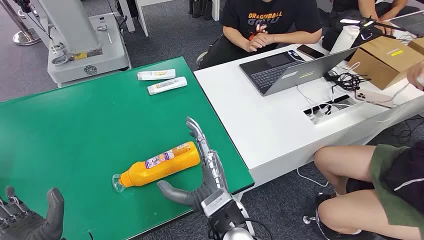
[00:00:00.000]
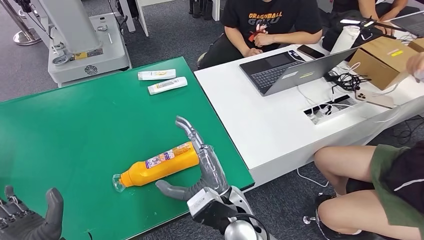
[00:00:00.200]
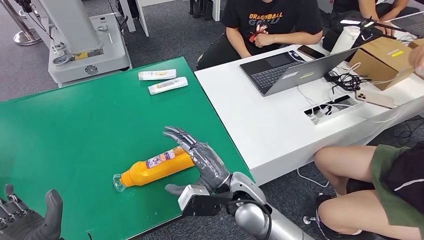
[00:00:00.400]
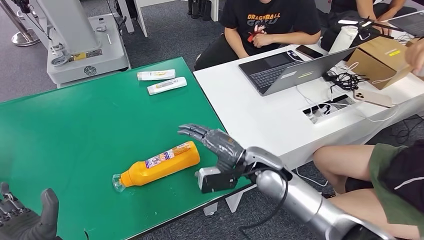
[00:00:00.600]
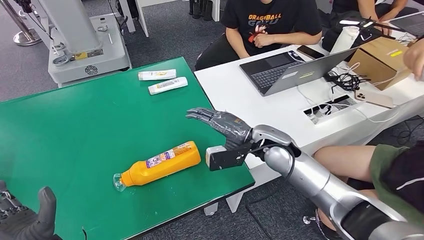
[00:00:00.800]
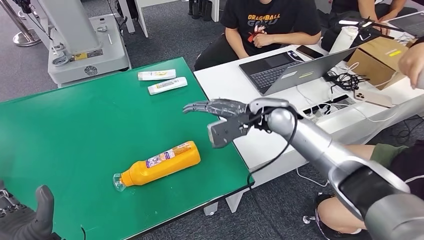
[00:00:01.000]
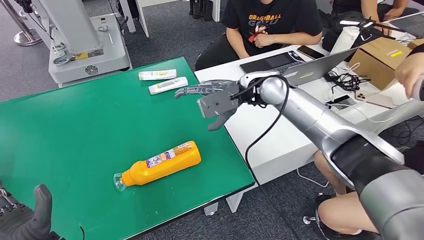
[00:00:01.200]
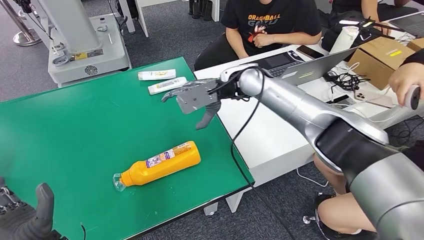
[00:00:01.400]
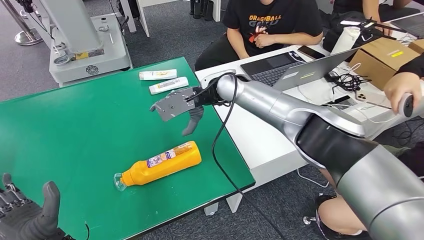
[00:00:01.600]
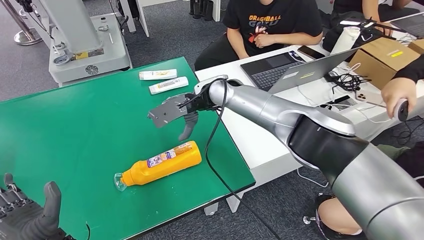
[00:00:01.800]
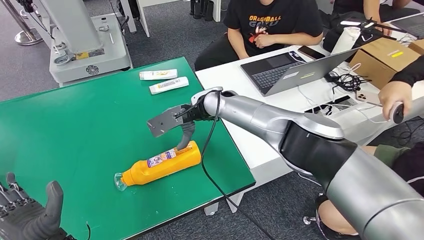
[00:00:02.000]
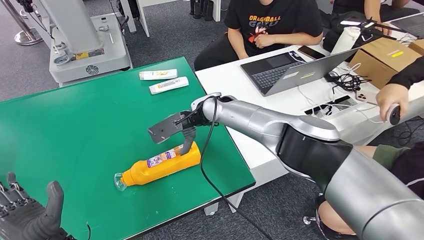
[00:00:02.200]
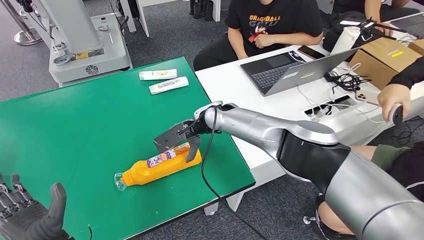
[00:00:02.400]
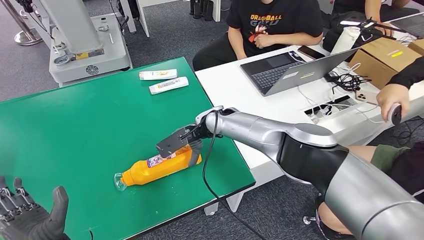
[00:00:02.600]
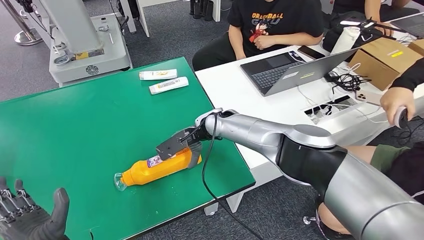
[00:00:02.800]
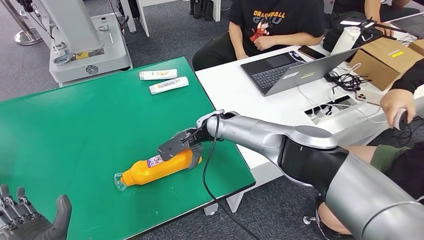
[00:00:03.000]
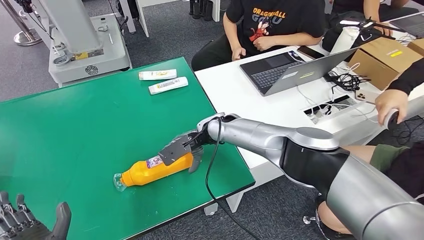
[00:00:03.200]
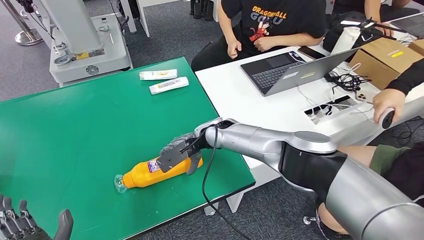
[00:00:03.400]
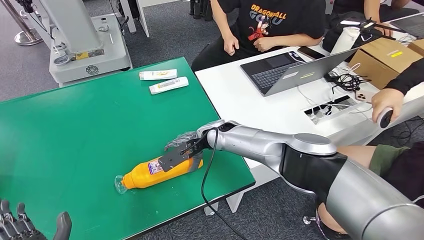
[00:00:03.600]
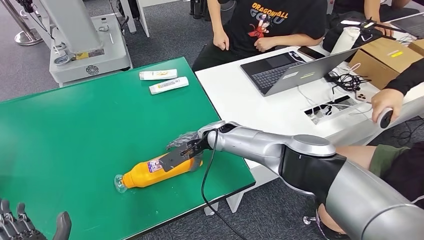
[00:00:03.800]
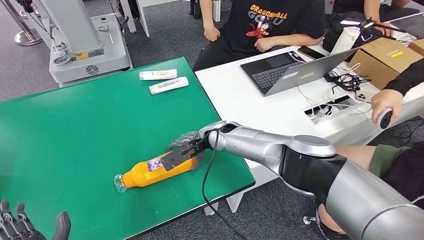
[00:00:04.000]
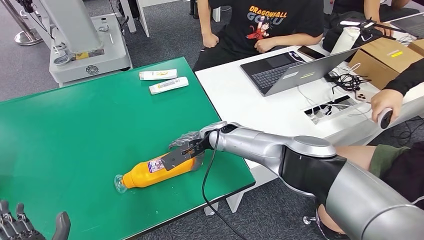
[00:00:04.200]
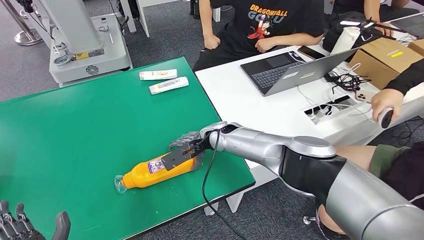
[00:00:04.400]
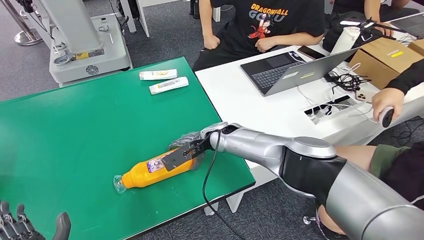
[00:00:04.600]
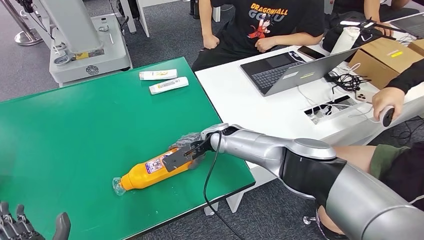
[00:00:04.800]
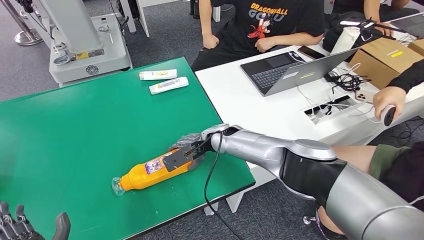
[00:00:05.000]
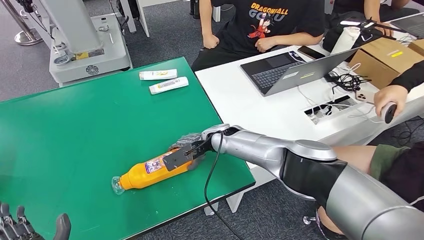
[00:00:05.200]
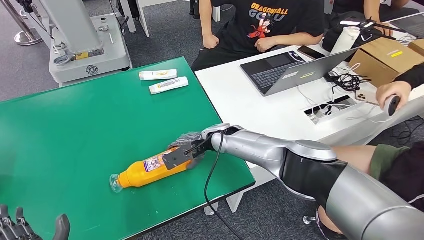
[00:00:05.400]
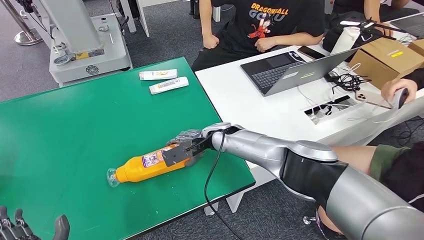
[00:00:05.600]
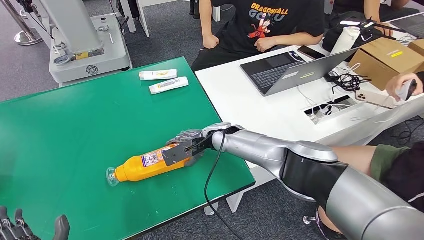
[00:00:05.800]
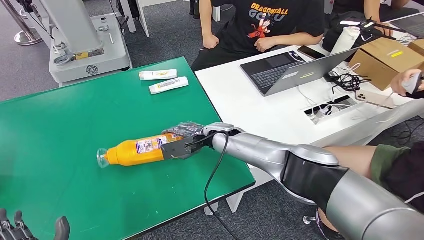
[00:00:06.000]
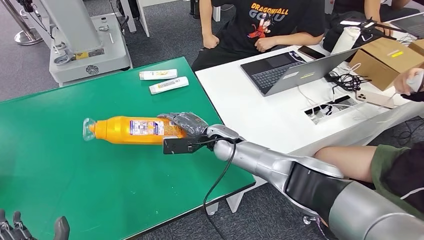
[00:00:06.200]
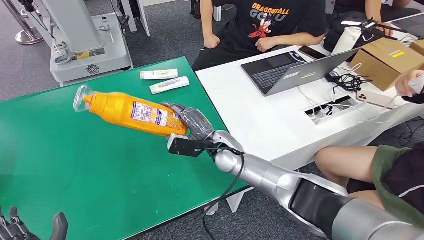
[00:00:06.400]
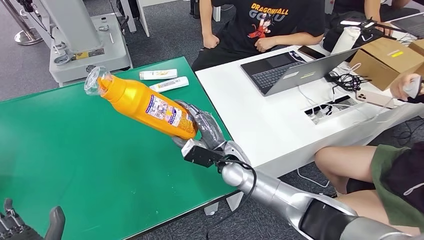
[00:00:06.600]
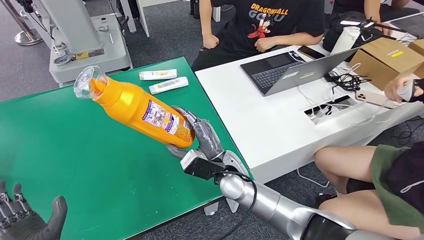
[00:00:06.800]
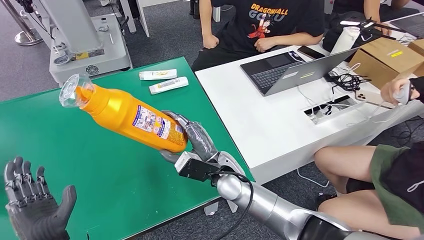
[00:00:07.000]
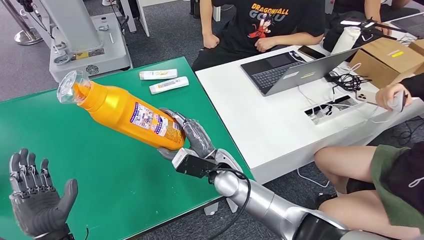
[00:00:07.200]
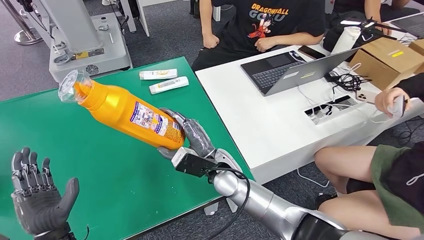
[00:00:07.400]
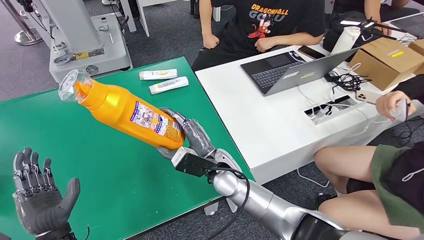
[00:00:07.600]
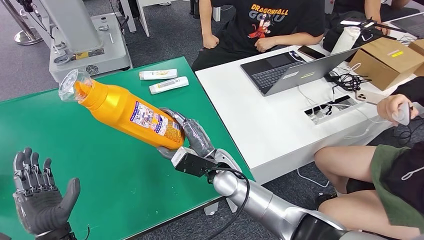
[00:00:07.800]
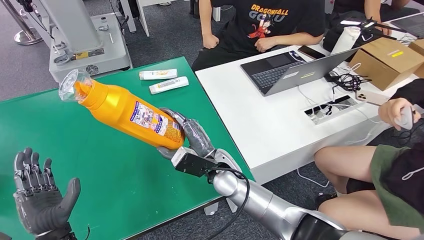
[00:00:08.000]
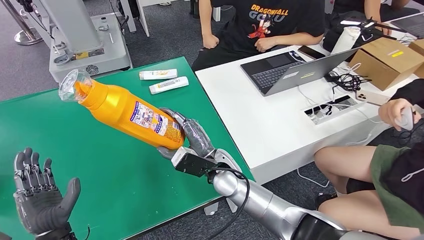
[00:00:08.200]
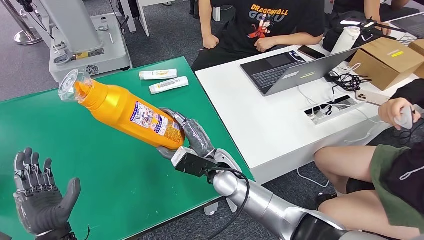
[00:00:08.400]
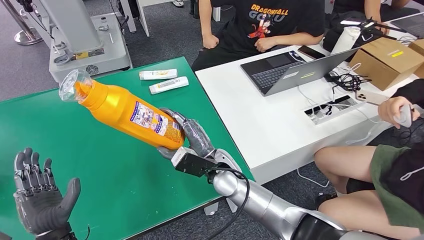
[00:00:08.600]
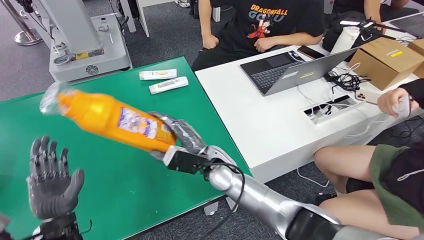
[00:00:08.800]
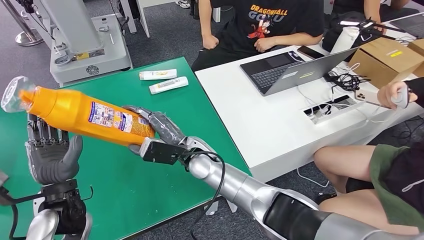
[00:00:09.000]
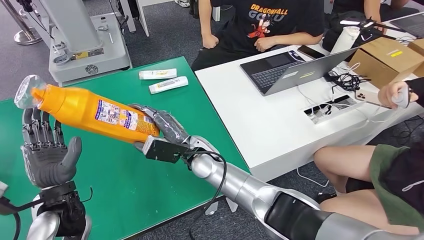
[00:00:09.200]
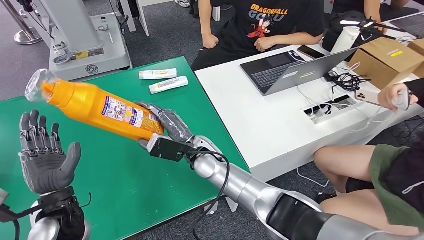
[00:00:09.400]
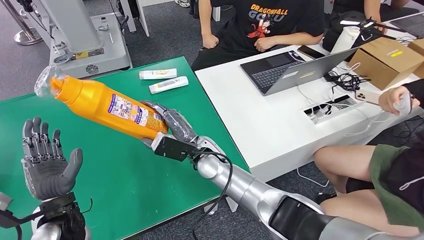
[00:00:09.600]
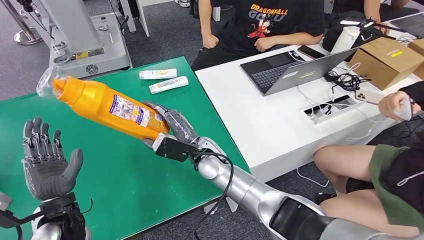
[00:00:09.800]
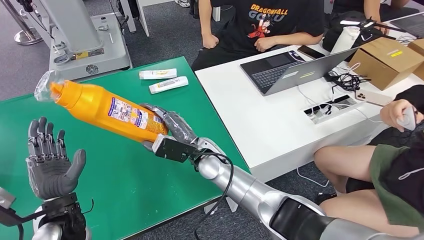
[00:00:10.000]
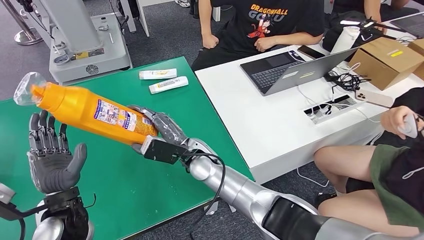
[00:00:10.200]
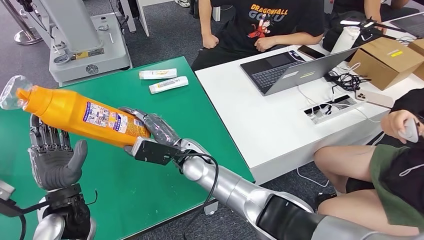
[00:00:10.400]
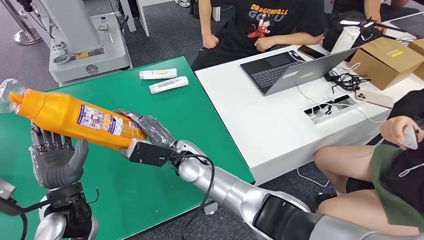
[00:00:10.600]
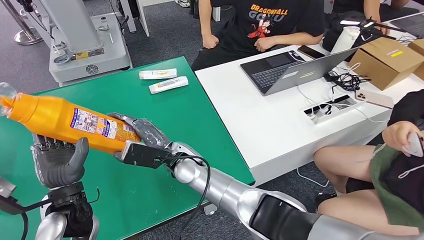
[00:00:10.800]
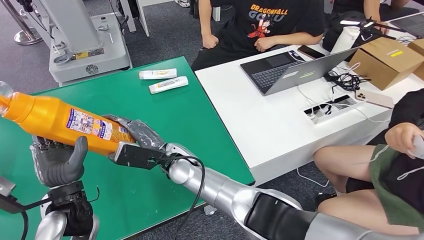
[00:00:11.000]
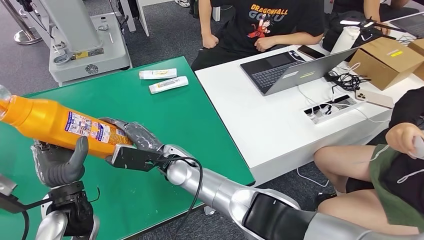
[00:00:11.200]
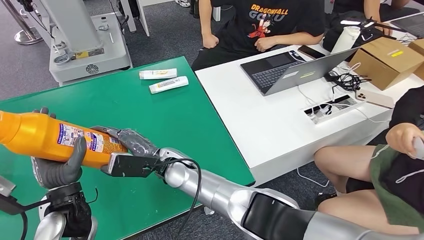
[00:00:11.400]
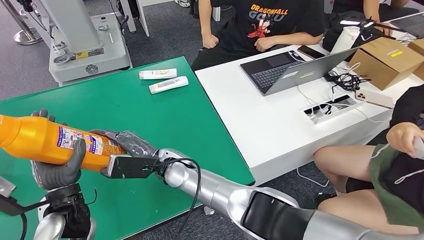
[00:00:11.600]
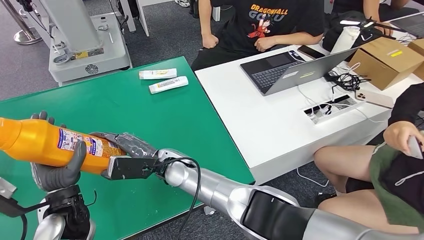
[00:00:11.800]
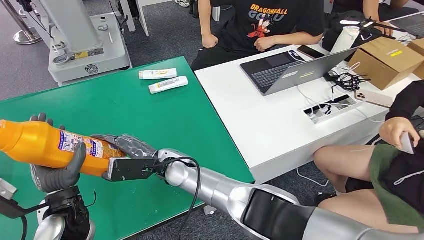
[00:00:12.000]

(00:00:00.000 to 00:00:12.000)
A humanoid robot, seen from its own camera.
Step, 00:00:00.000 - 00:00:06.800: Pick up the bottle from the table.
00:00:03.000 - 00:00:04.400: The hands stay close to where they were, moving slightly.
00:00:04.400 - 00:00:06.000: The hands stay close to where they were, moving slightly.
00:00:09.000 - 00:00:10.400: The hands stay close to where they were, moving slightly.
00:00:10.400 - 00:00:12.000: The right hand moves some 5 cm.

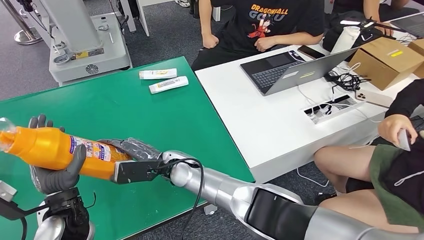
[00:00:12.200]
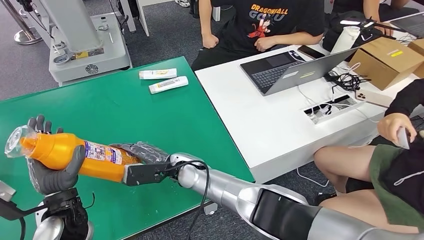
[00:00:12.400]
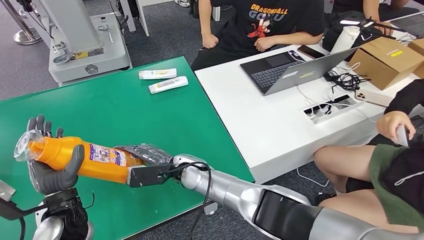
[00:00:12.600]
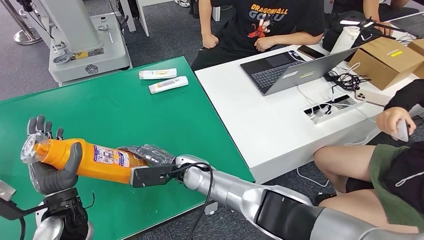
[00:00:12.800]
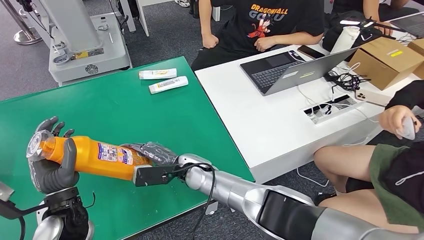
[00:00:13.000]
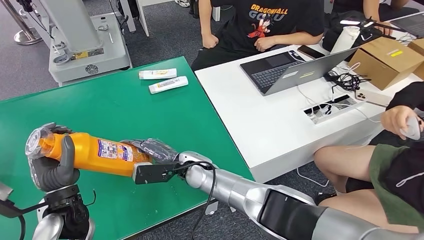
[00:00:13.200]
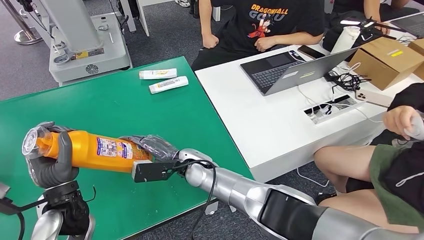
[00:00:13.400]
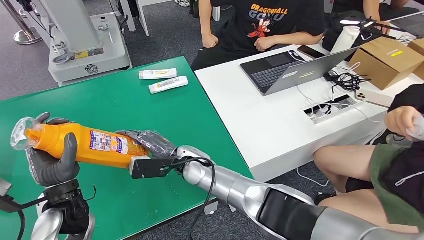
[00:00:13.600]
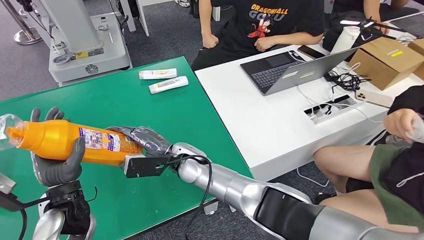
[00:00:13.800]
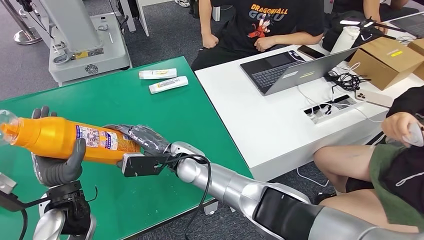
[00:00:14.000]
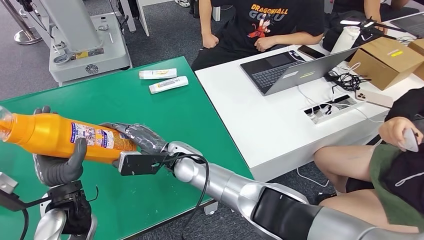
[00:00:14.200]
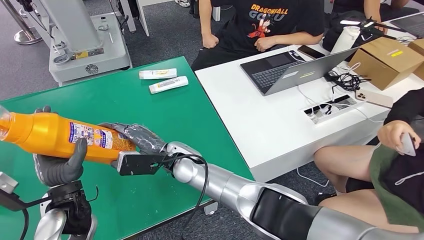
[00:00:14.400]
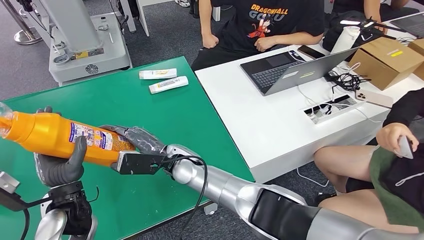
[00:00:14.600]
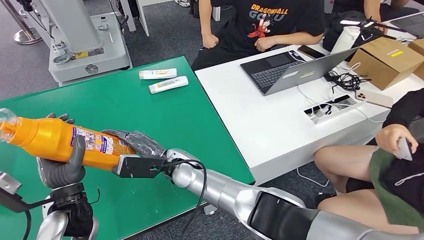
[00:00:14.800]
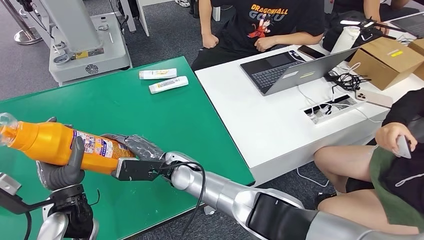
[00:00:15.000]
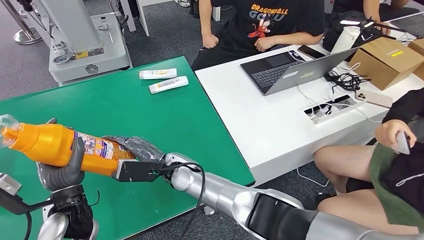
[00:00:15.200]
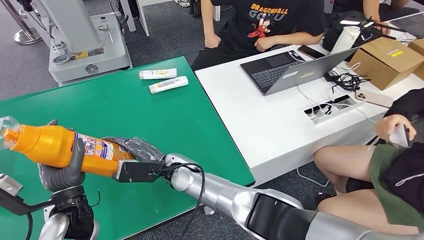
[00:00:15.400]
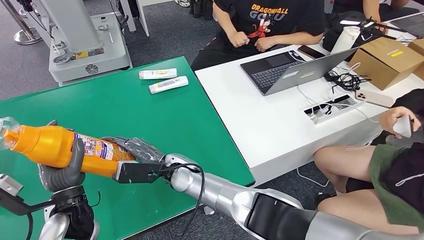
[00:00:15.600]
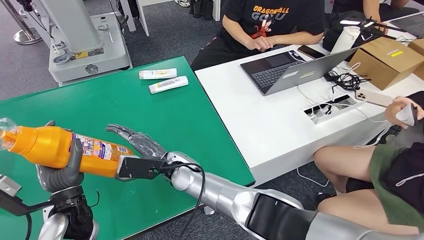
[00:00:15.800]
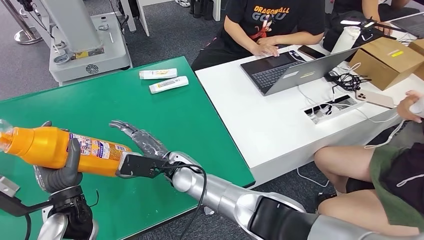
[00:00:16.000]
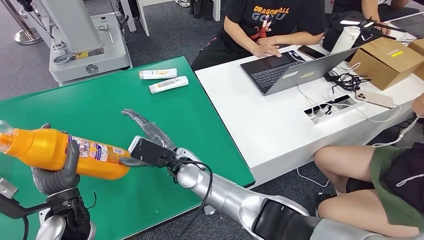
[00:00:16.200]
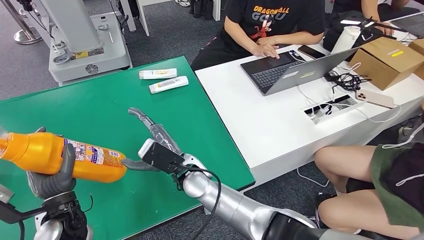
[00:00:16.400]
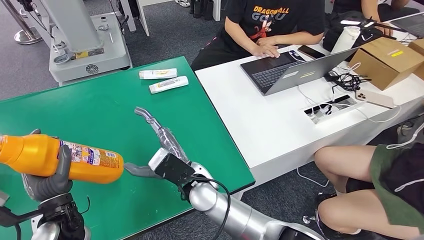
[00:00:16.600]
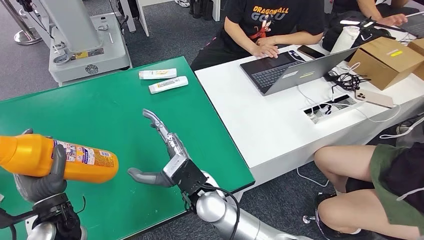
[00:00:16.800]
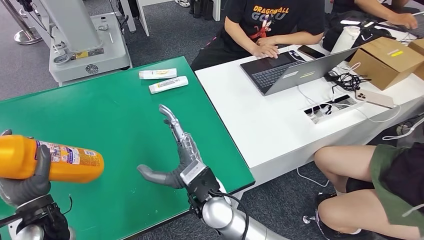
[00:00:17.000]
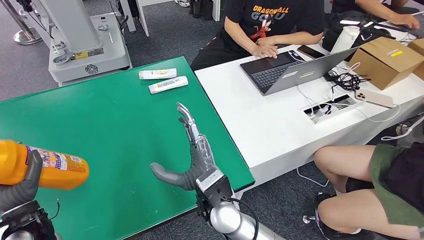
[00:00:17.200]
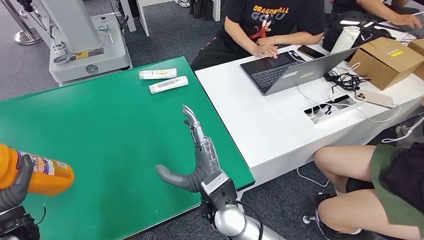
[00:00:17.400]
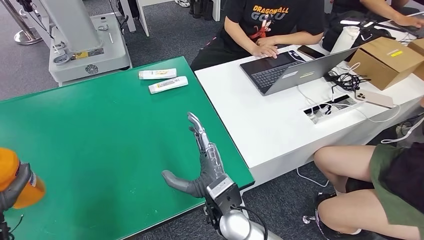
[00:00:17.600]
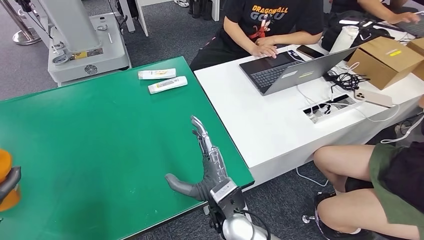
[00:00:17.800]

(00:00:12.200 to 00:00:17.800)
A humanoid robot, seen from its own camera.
Step, 00:00:12.200 - 00:00:17.800: Turn the bottle to the front side.
00:00:12.200 - 00:00:15.000: The hands stay close to where they were, moving slightly.
